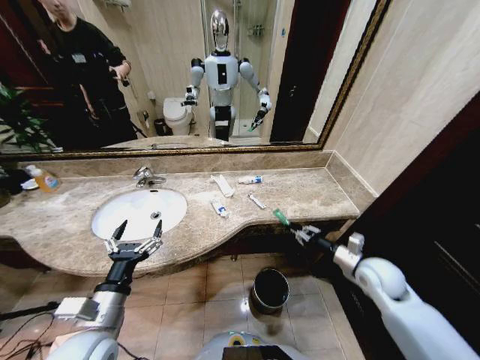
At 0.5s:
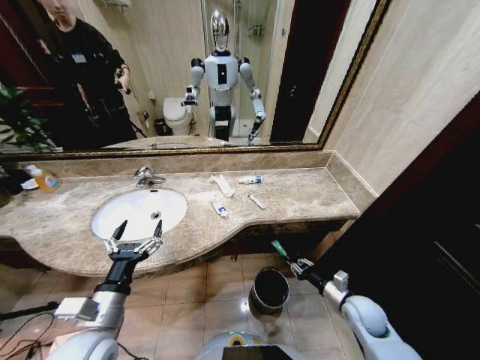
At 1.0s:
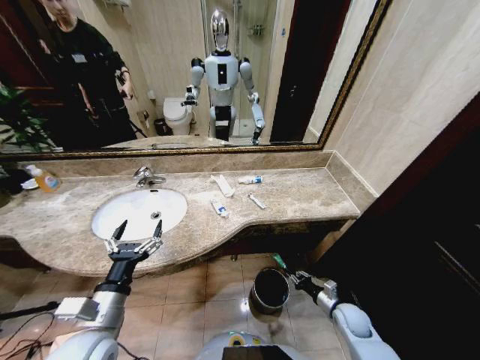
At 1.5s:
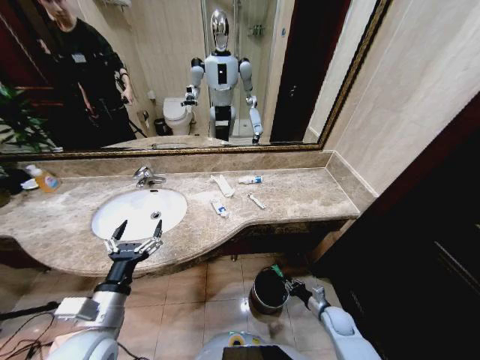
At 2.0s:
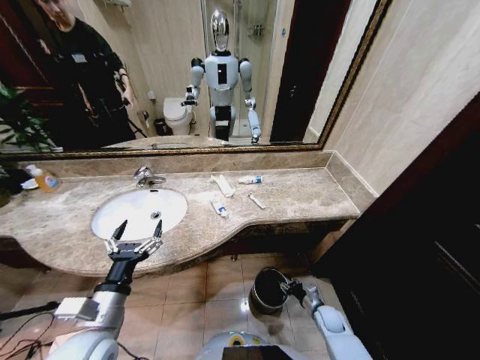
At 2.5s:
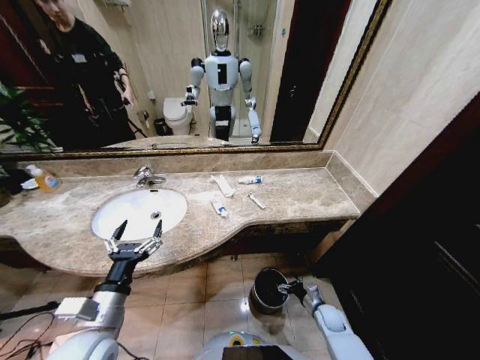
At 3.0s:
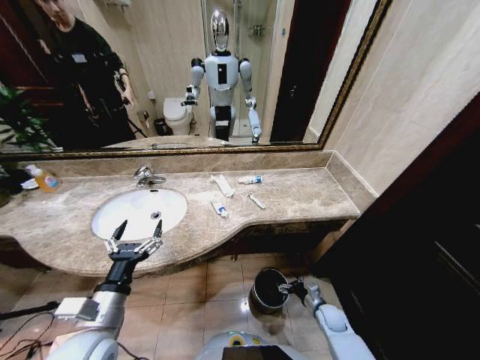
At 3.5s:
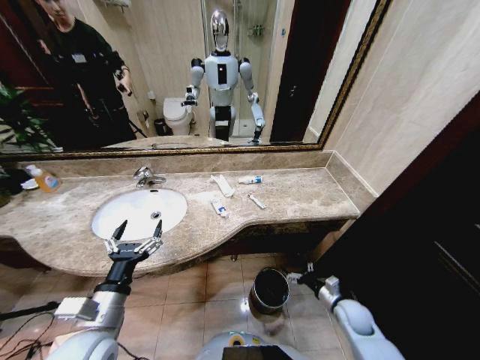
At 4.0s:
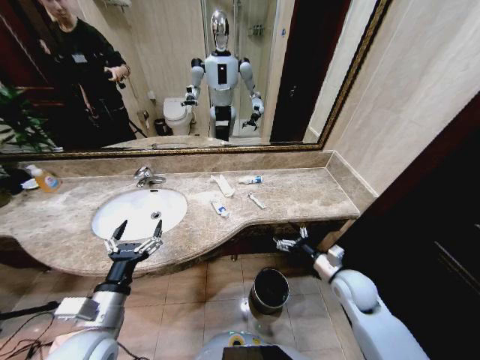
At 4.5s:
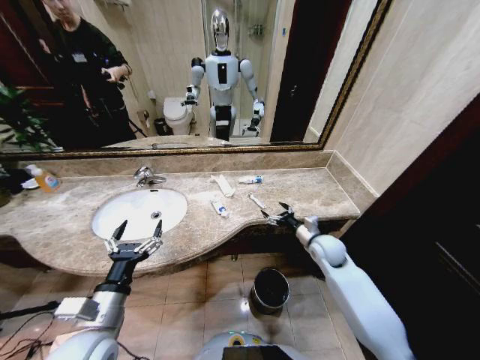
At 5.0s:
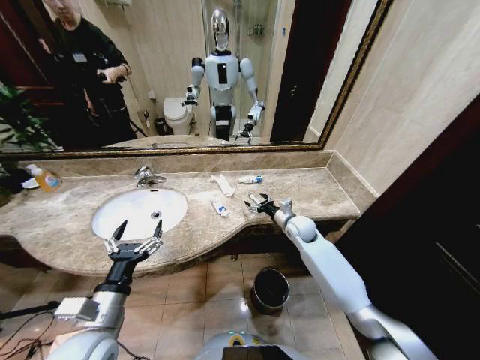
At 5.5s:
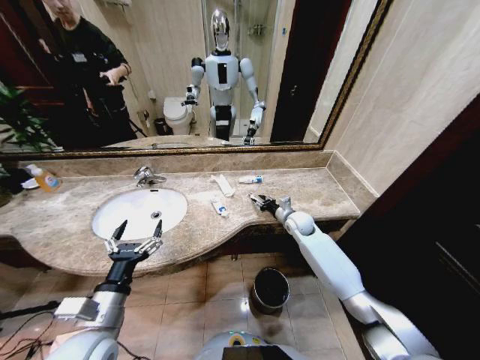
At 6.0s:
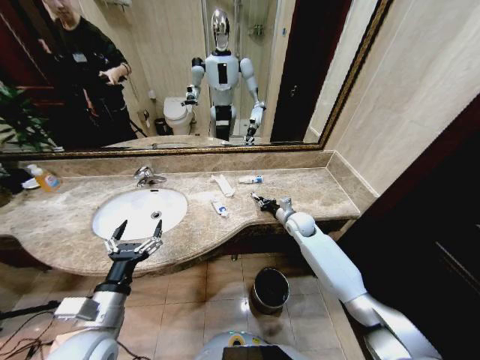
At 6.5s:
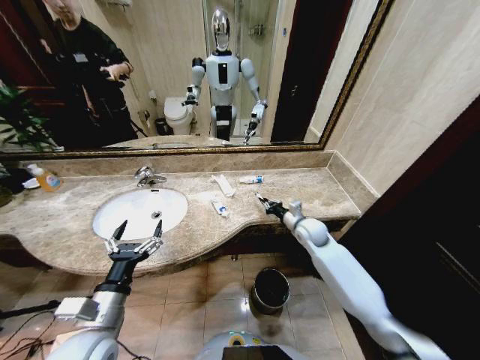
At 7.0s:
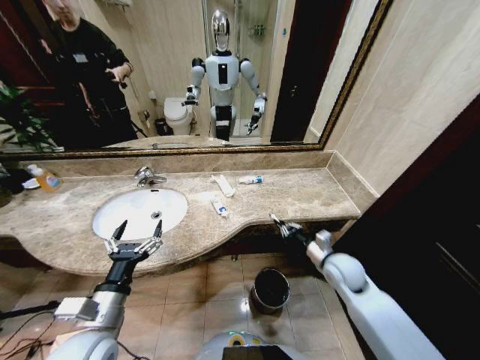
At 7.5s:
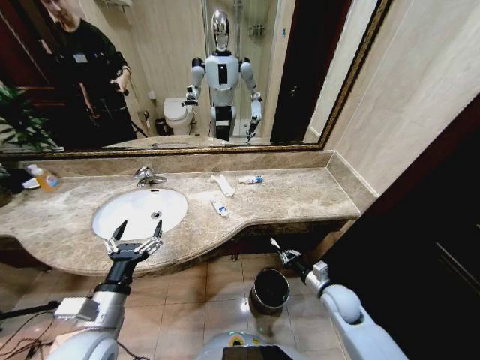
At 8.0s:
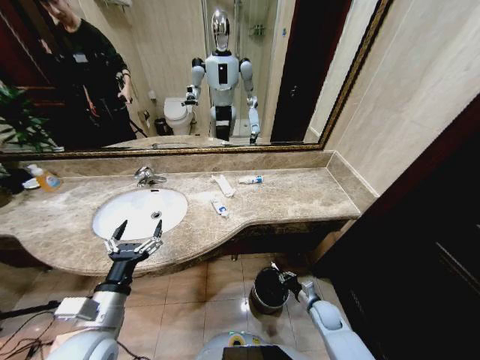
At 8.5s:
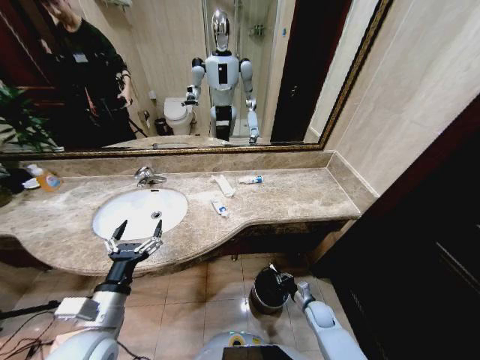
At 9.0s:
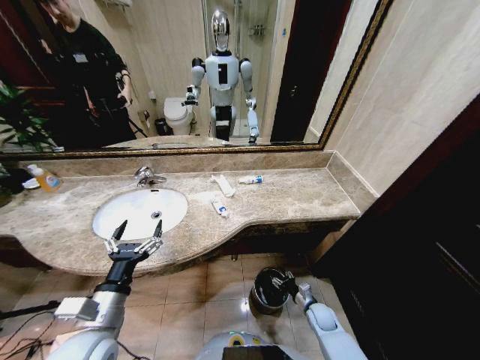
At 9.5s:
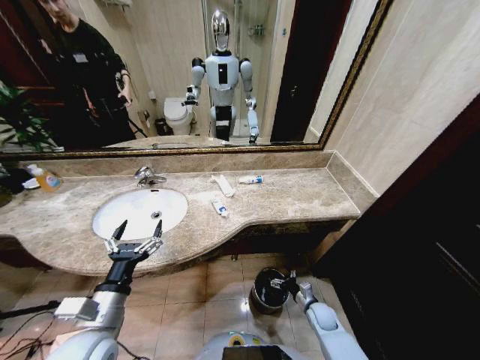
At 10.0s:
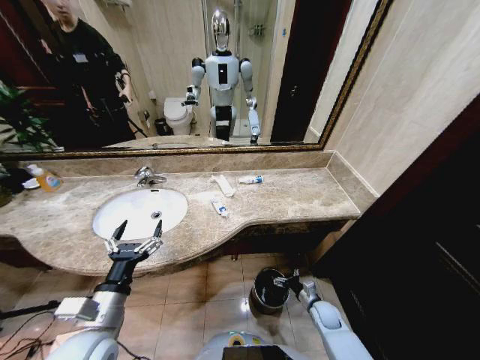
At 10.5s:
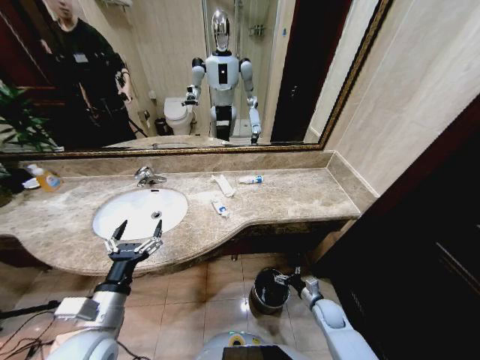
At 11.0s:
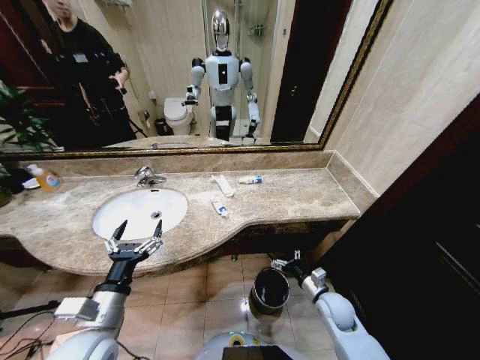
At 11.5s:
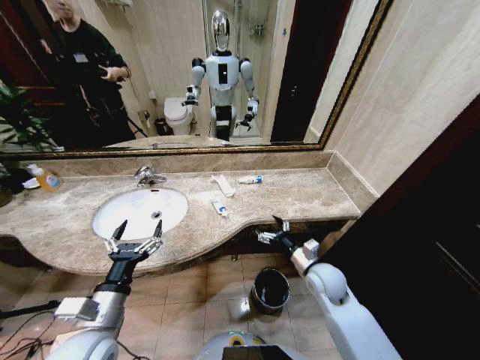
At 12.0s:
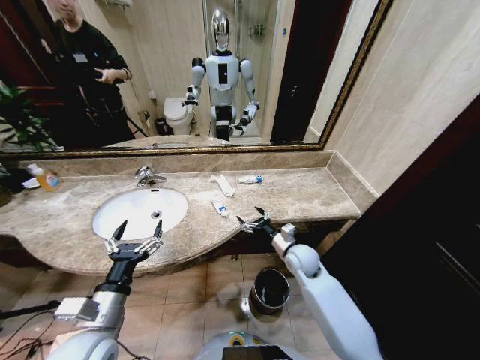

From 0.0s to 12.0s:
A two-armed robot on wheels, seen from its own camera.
Task of the whole recording: Pick up the trash from the sink and place it in the trash bin.
From 0.0s to 2.0s: The right gripper moves downward, approximately 30 cm.
From 2.0s to 4.0s: The right gripper heads upward, covering about 25 cm, and opens.
From 4.0s to 6.0s: The right gripper heads forward, covering about 20 cm, and closes.
From 6.0s to 8.0s: The right gripper goes about 35 cm backward and downward.
From 10.0s to 12.0s: The right gripper goes some 25 cm upward, to the left and forward.

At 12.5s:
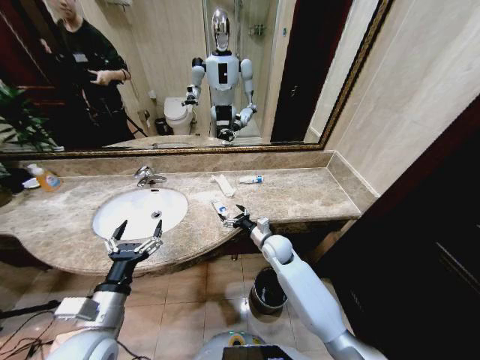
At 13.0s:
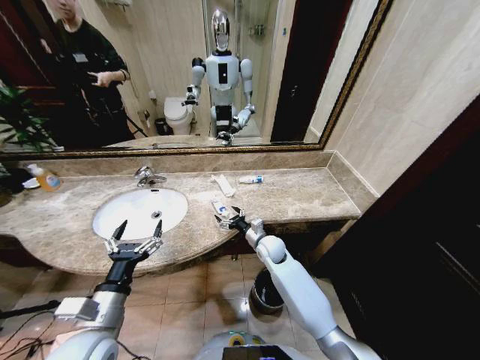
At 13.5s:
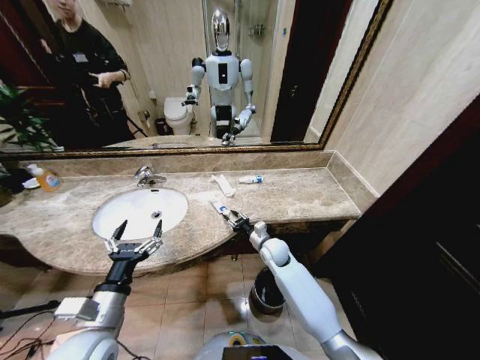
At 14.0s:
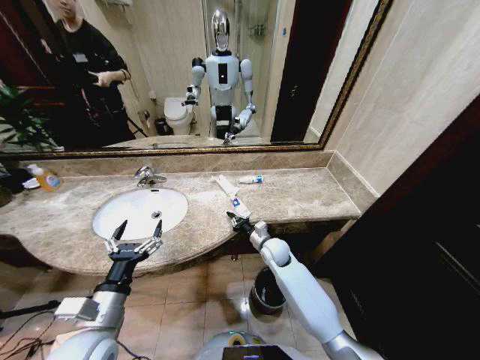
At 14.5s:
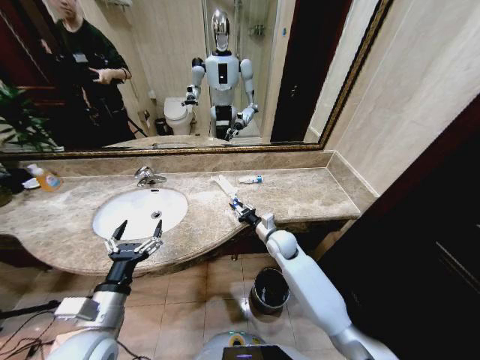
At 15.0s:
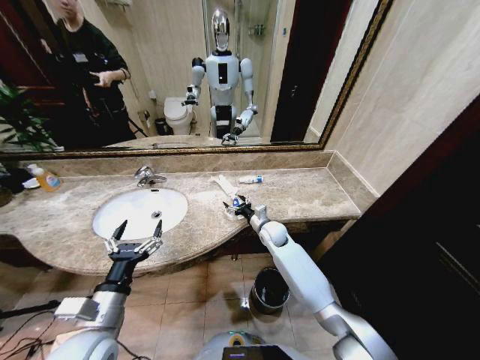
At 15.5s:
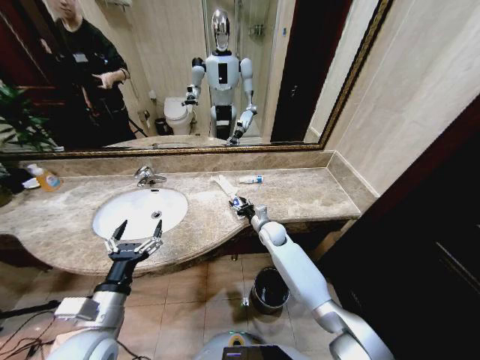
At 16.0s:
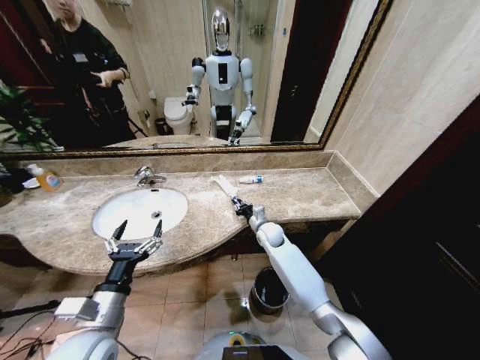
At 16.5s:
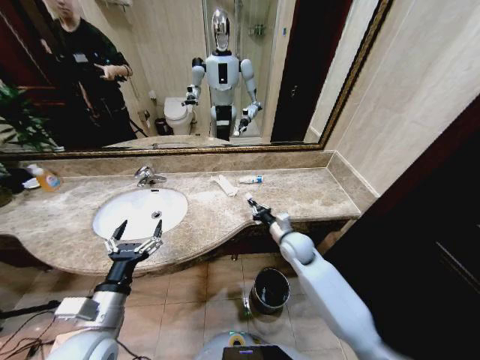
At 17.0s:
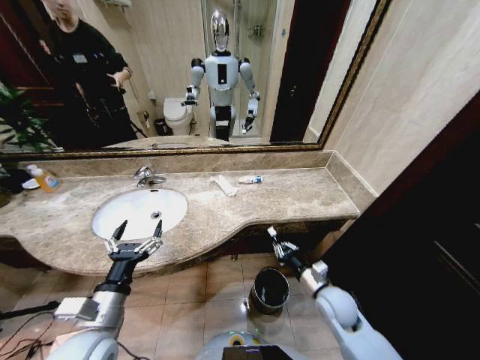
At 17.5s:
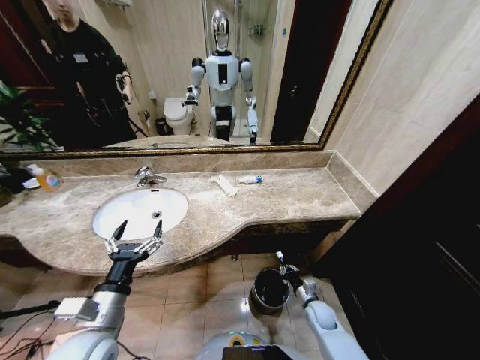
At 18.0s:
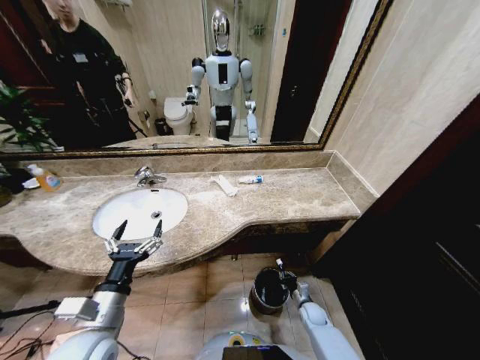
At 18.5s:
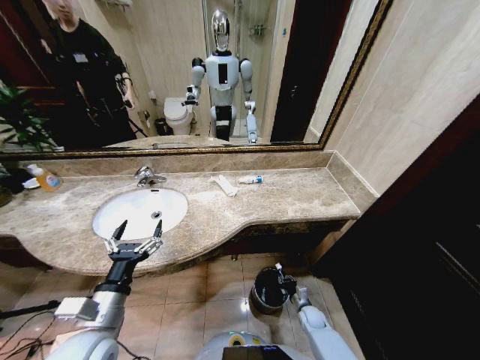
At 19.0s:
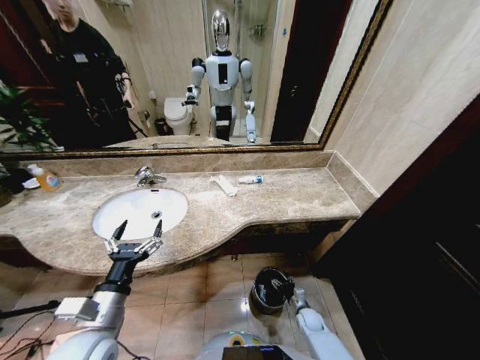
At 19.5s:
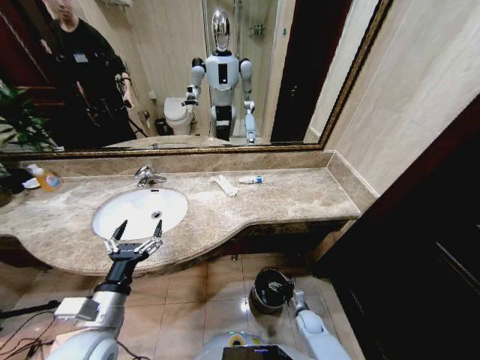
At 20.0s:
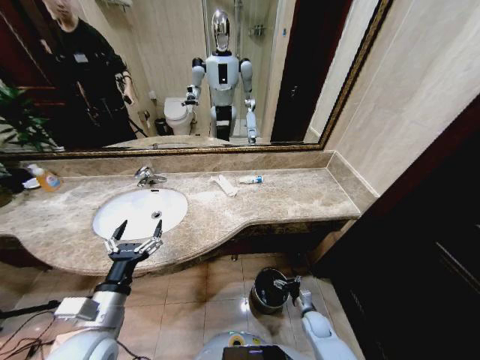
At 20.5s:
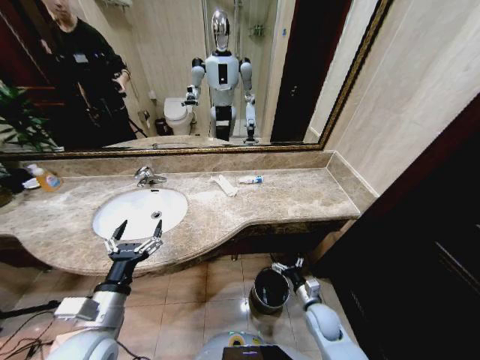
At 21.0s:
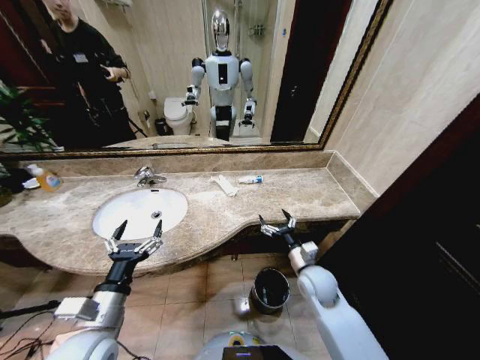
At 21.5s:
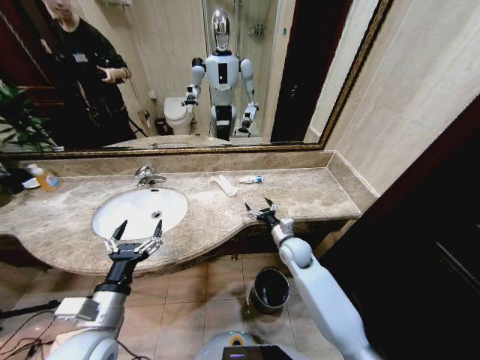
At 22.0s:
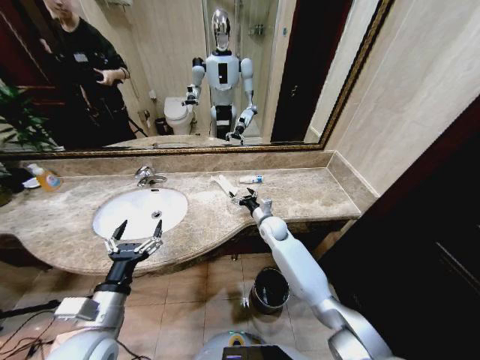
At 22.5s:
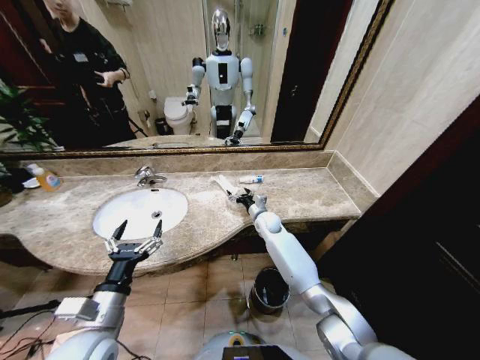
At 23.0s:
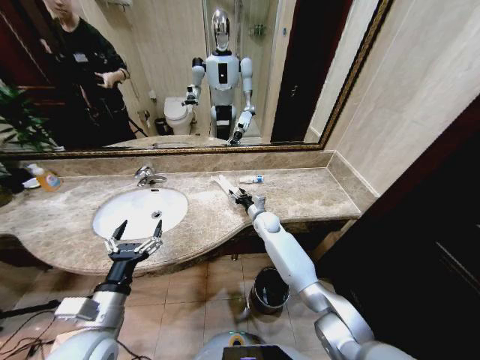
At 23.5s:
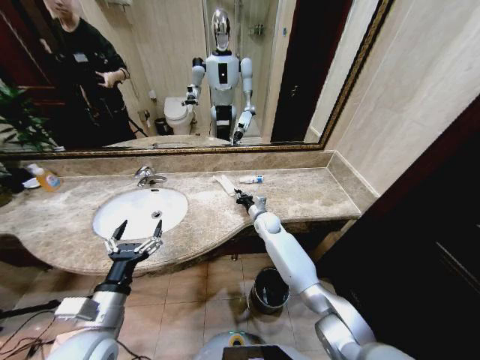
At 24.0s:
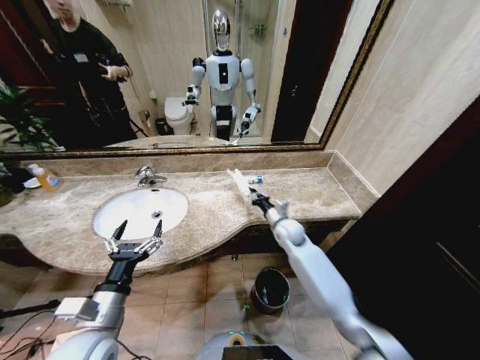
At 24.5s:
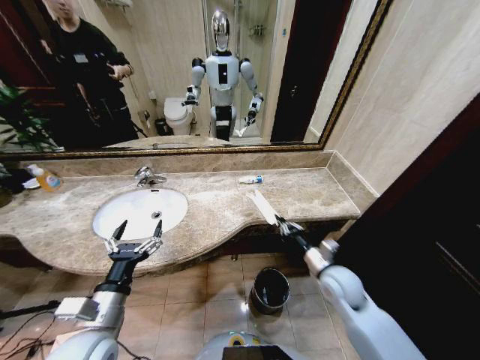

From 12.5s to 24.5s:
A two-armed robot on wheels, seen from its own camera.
Task of the whole recording: Pick up the trash from the sink and place it in the trash bin.
From 12.5s to 14.5s: The right gripper closes up.
From 14.5s to 16.5s: The right gripper shifts roughly 5 cm backward, and opens, then closes once more.
From 16.5s to 18.5s: The right gripper shifts some 30 cm downward.
From 18.5s to 20.5s: The right gripper moves upward, roughly 15 cm, and opens up.
From 20.5s to 22.5s: The right gripper is displaced forward, to the left and upward by approximately 35 cm.
From 22.5s to 24.5s: The right gripper goes some 25 cm backward and to the right, and closes.

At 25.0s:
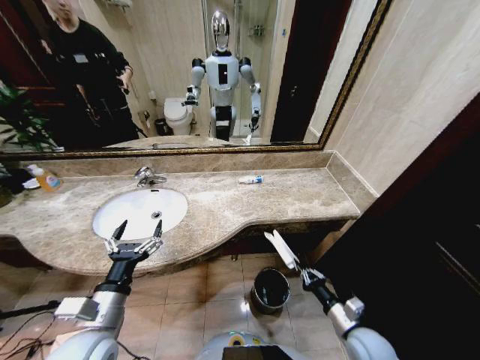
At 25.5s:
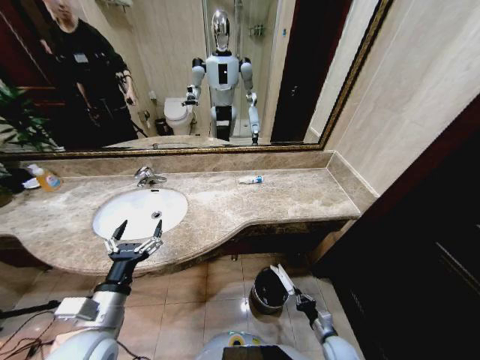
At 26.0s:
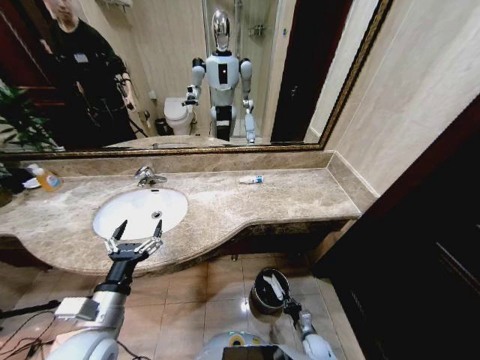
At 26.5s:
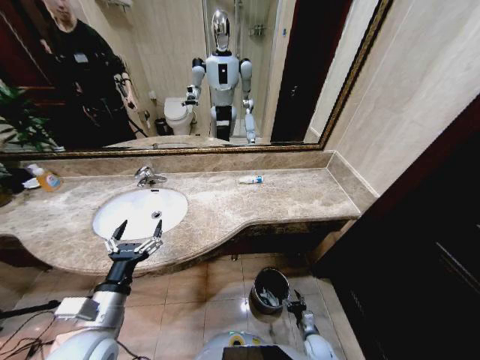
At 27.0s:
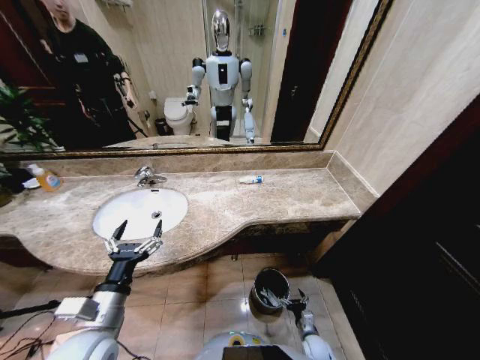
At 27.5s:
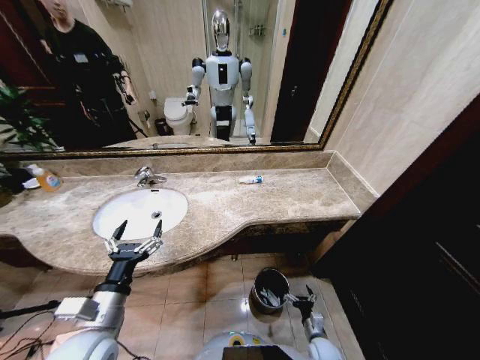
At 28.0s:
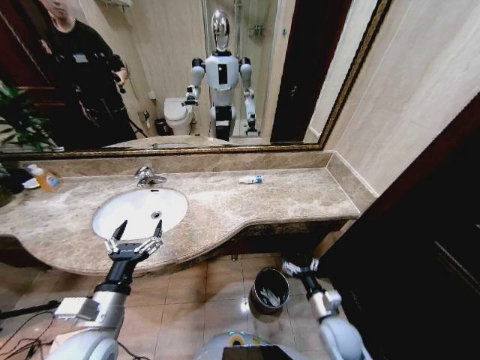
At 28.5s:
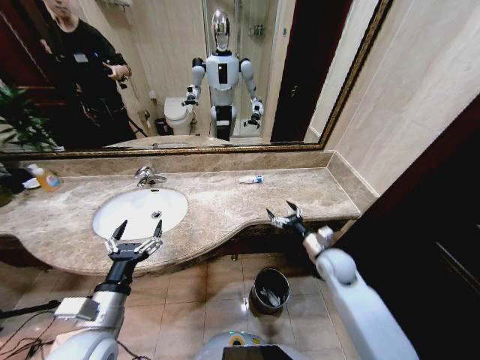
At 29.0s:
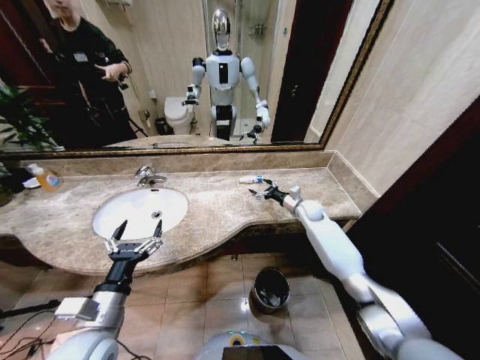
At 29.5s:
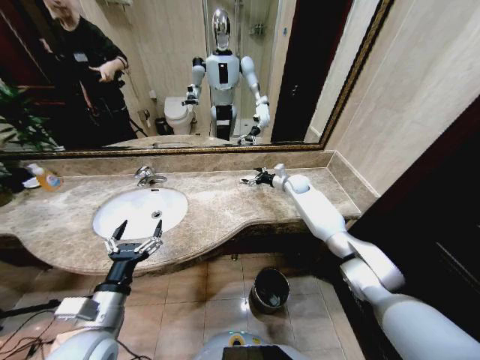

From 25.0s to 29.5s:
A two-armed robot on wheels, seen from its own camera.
Task of the whole recording: Pick up the trash from the sink and place it in the trash bin.
From 25.0s to 27.0s: The right gripper goes approximately 25 cm downward, and opens.
From 27.0s to 29.5s: The right gripper shifts some 60 cm forward and upward.
